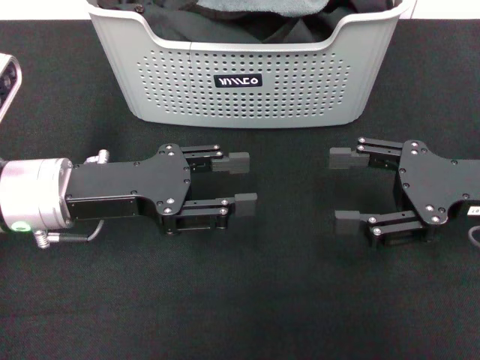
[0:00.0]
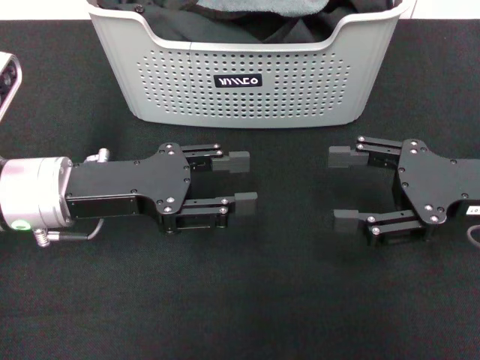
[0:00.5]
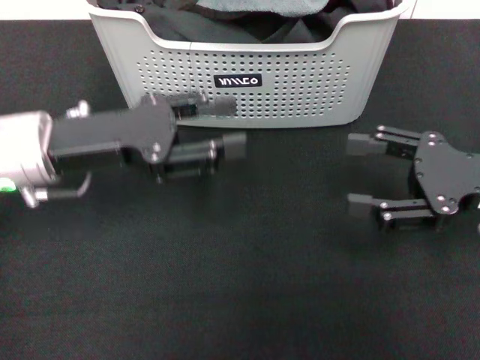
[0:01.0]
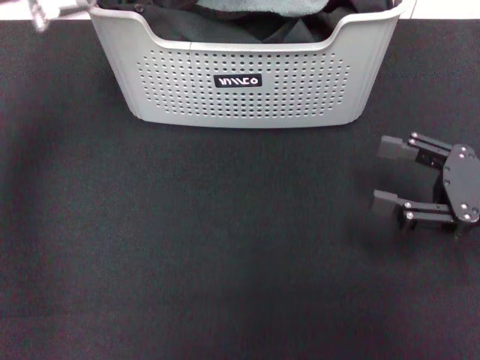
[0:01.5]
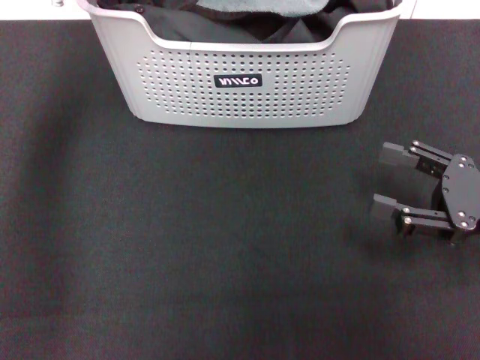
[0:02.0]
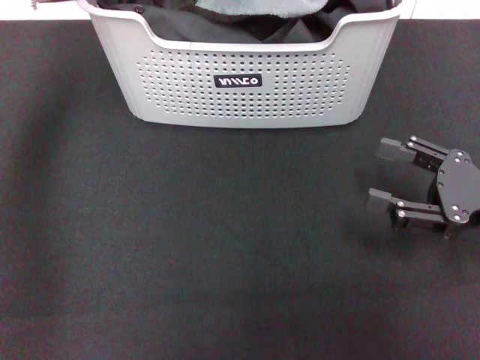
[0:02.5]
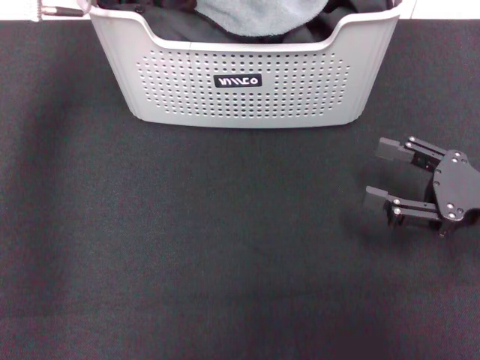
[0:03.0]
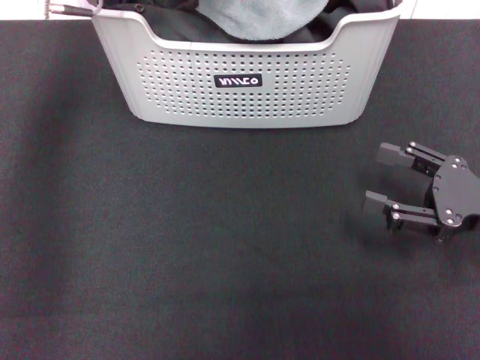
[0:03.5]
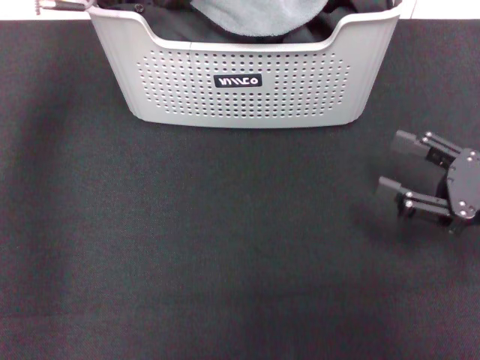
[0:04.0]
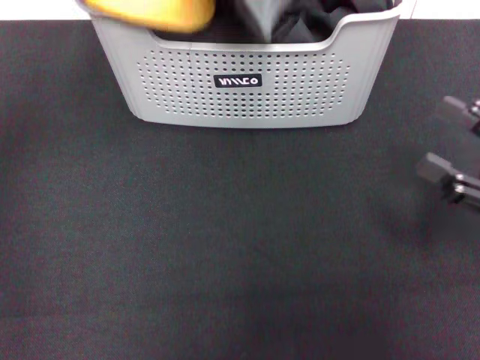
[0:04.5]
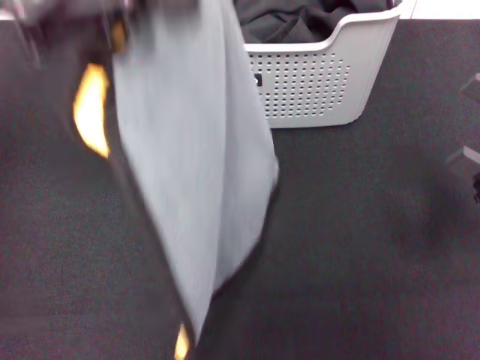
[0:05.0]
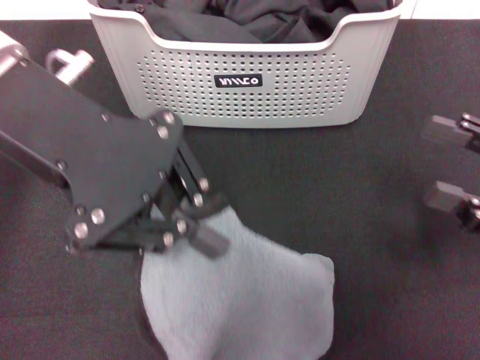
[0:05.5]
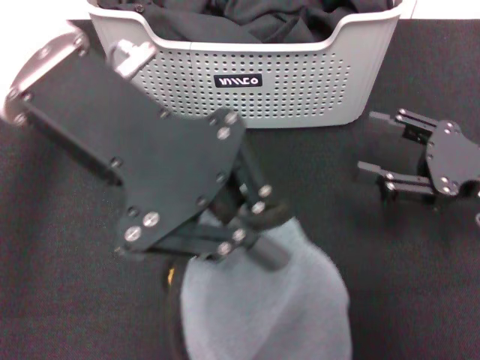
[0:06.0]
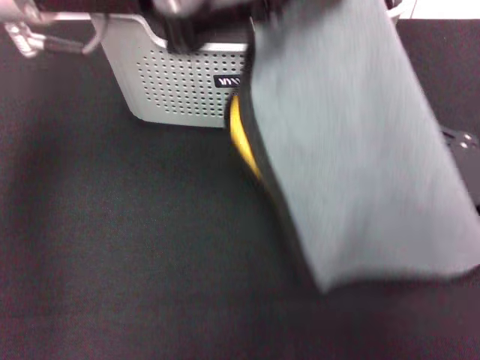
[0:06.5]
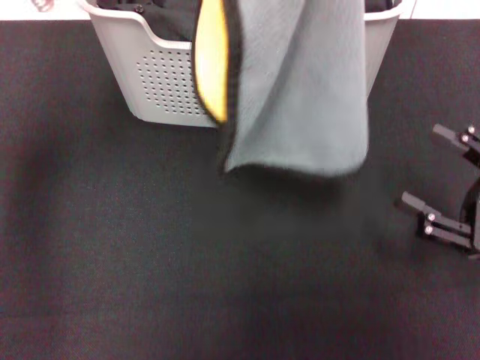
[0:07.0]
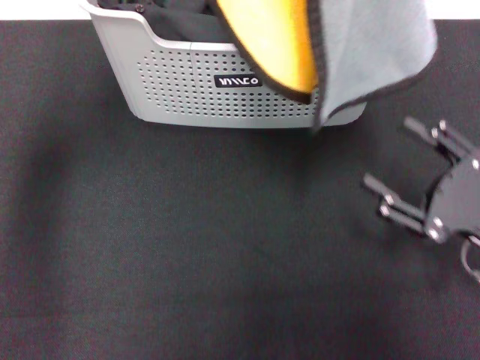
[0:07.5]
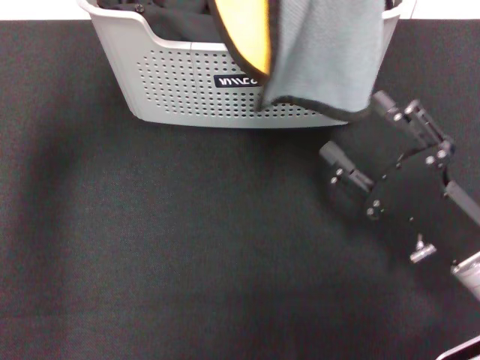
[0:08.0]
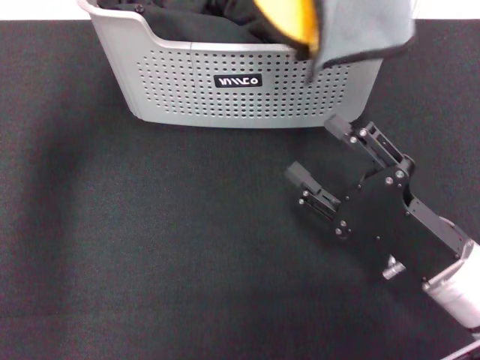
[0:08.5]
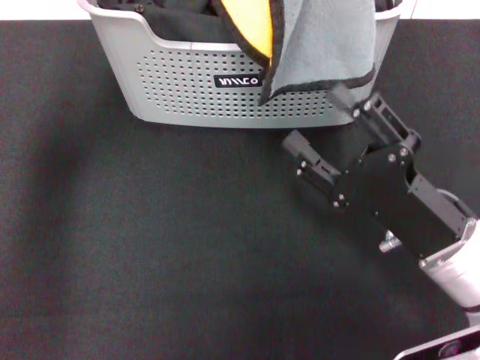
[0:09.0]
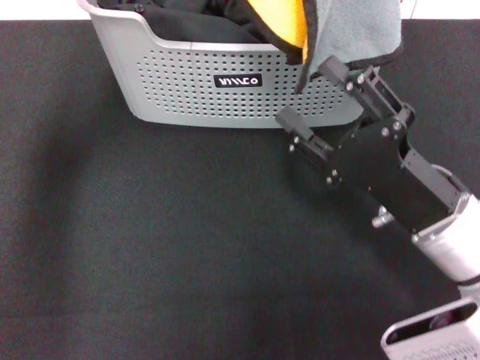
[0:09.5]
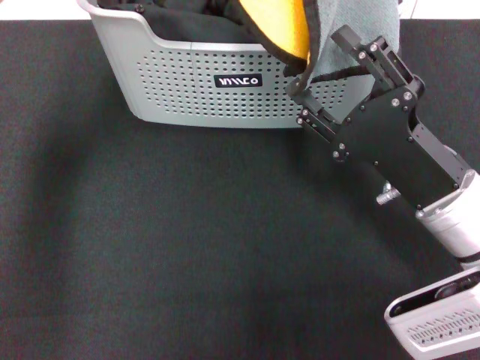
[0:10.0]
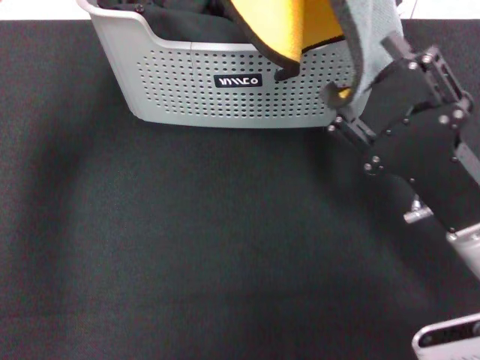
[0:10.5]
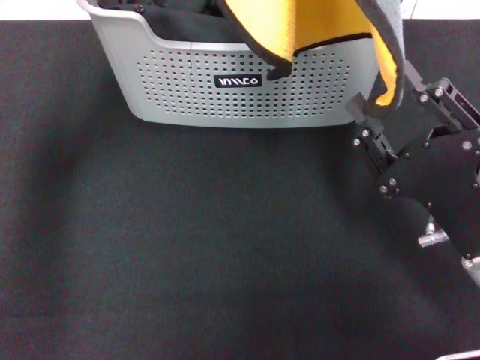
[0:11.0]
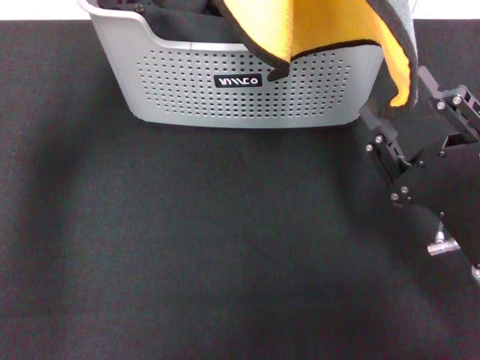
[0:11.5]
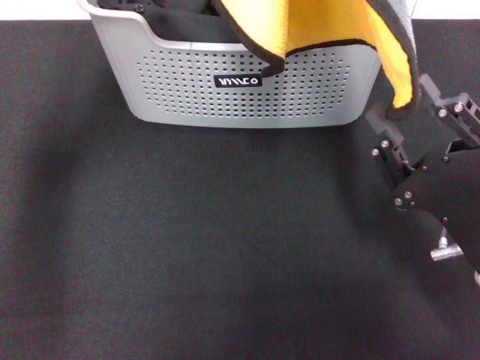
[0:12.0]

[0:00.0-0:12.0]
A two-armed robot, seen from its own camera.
Task of the whole recording: pick up the towel from the storage box and lay it flat on the black tablecloth.
Step, 0:00.0 to 0:03.5: Pick up a towel with the left gripper.
0:00.0 to 0:02.0: The left gripper is displaced forward and upward by about 20 cm. The right gripper ends up some 5 cm from where it was.
0:02.0 to 0:04.0: The left gripper closes up.
0:04.0 to 0:06.0: The left gripper shifts about 15 cm backward.
0:06.0 to 0:08.0: The left gripper moves forward, some 5 cm; the right gripper shifts some 10 cm backward and to the left.
0:08.0 to 0:10.0: The right gripper shifts by some 5 cm.
0:10.0 to 0:12.0: The right gripper goes some 5 cm backward, and closes.

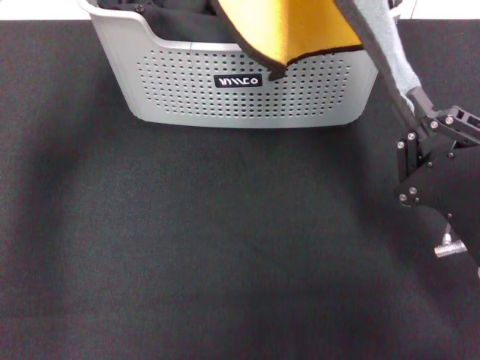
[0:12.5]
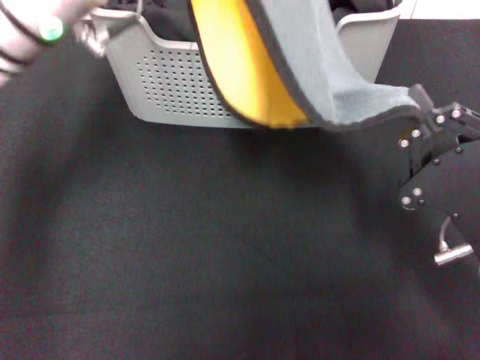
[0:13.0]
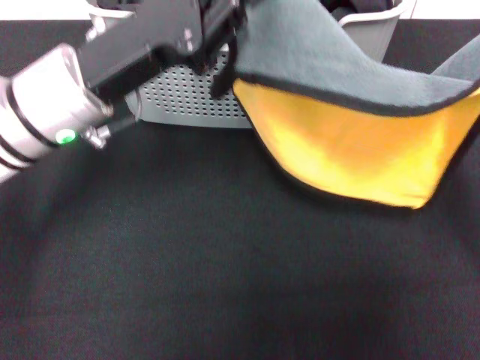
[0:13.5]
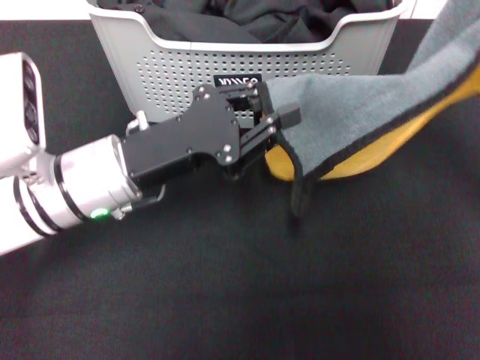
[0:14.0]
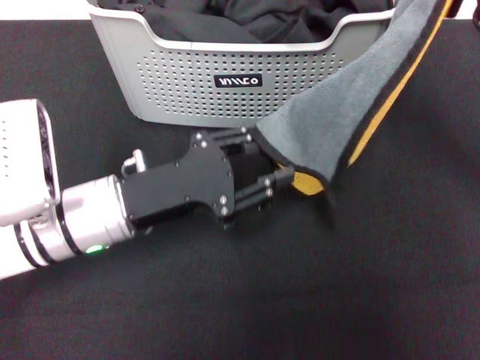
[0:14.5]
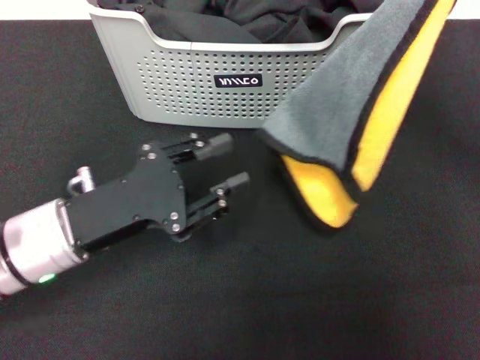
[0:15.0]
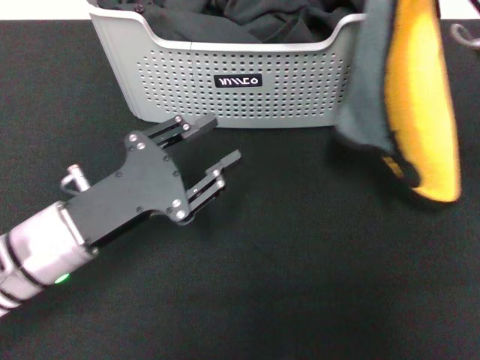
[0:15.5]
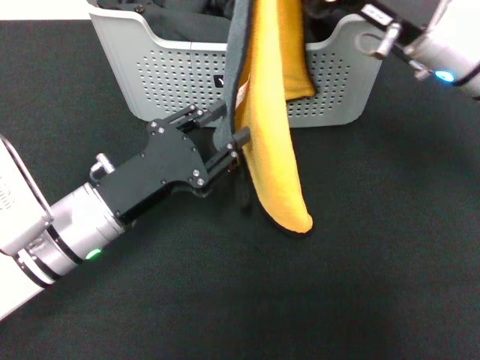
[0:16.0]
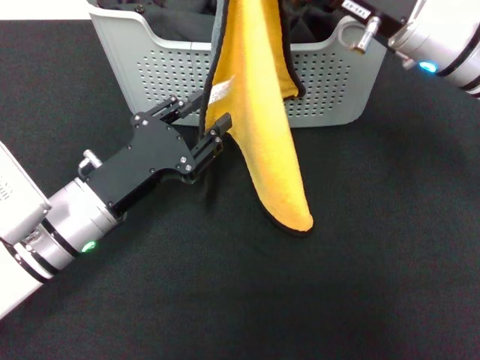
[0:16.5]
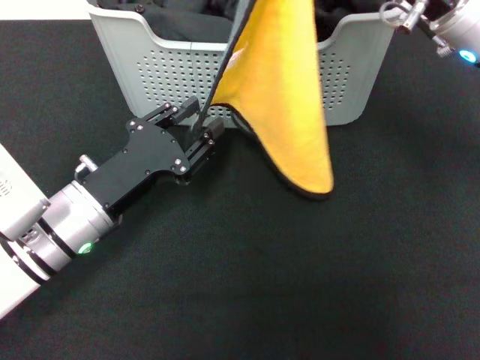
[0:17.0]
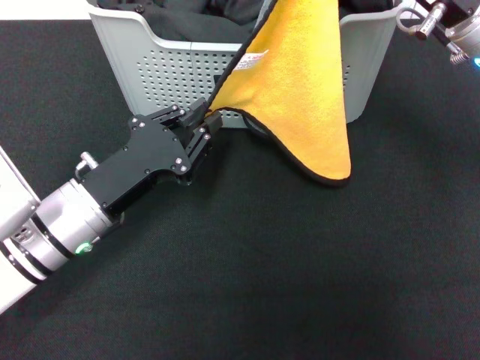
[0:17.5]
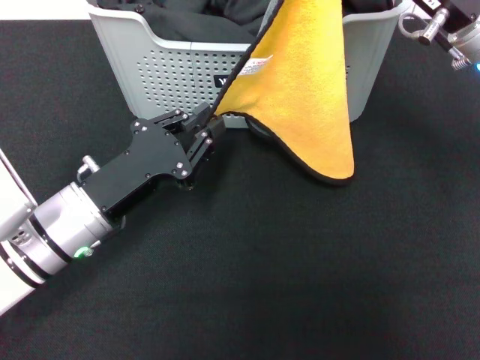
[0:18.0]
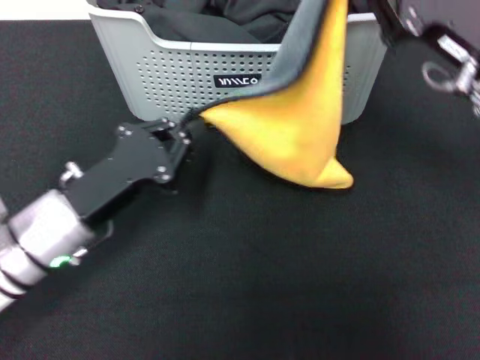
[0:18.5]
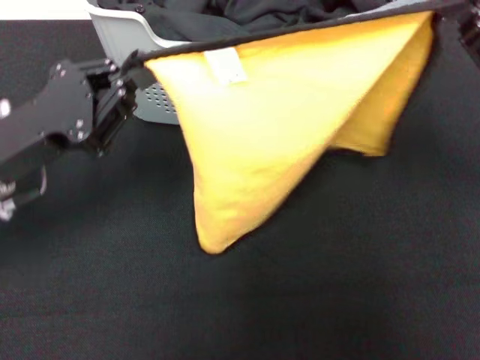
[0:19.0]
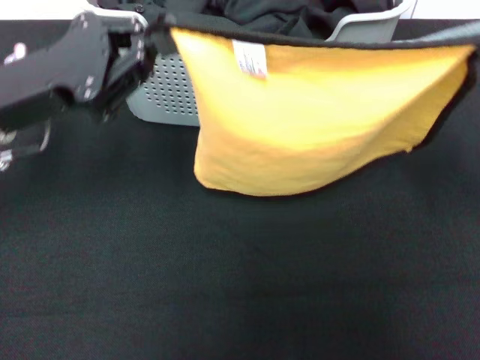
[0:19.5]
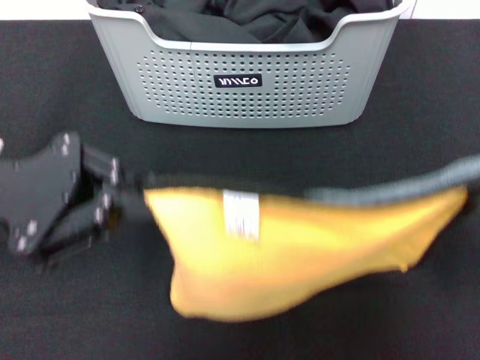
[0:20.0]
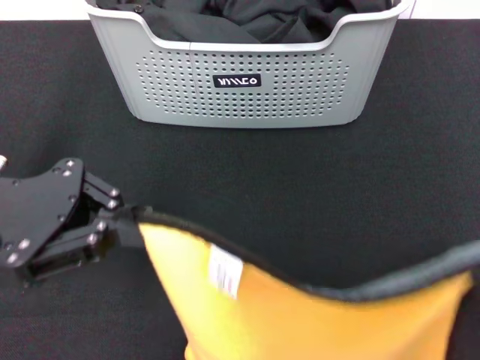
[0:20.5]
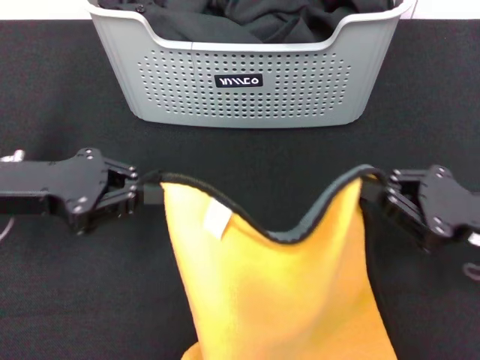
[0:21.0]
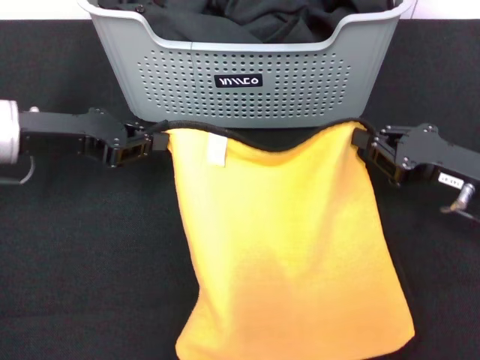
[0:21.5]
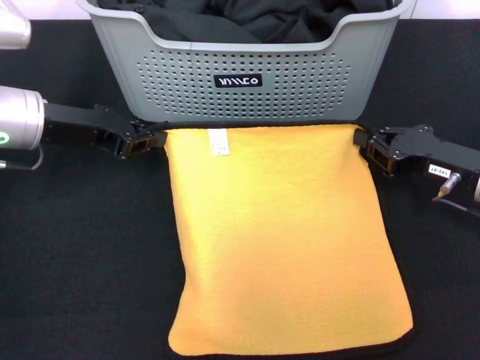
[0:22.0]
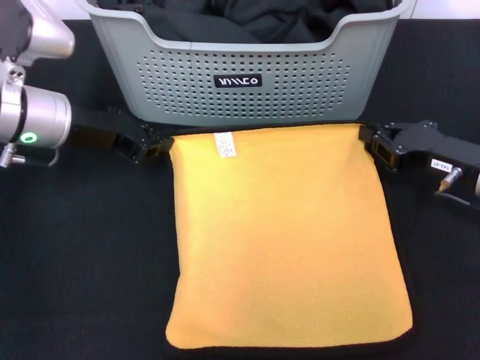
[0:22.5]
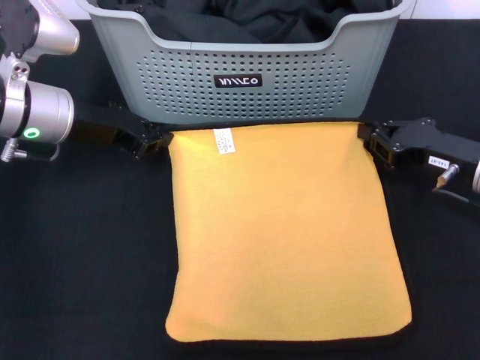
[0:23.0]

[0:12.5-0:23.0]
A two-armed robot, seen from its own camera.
Task of the whole recording: pick up the towel from the storage box and lay it flat on the black tablecloth.
0:12.5 to 0:14.5: The right gripper shifts roughly 15 cm forward and upward. Meanwhile the left gripper heads downward and backward, covering about 20 cm, and opens its fingers.
0:14.5 to 0:16.5: The right gripper heads to the left and forward, covering roughly 10 cm.
0:16.5 to 0:19.0: The left gripper heads upward and to the left, covering some 10 cm, and closes. The right gripper moves to the right and backward, about 15 cm.
0:19.0 to 0:21.0: The right gripper travels downward and backward by some 10 cm.
0:21.0 to 0:23.0: Both grippers move forward, roughly 10 cm.

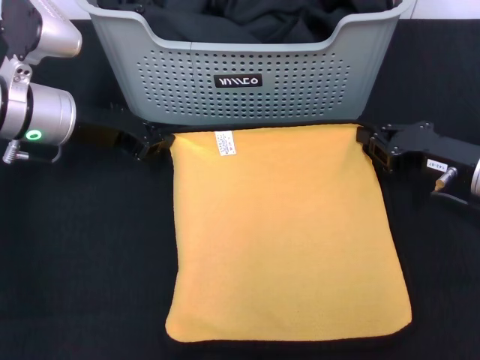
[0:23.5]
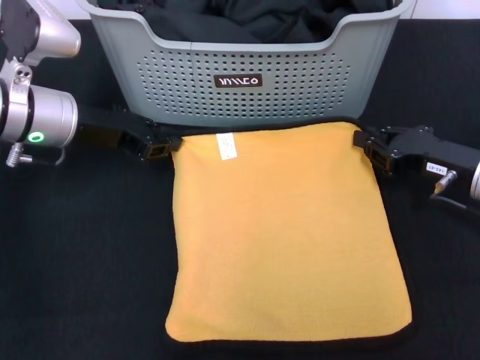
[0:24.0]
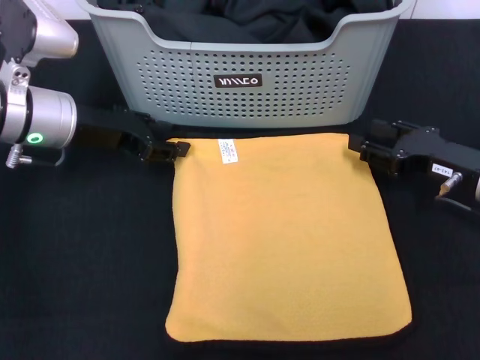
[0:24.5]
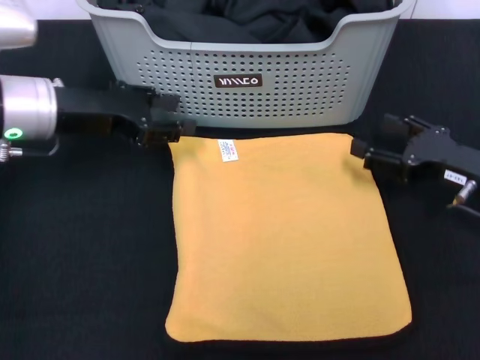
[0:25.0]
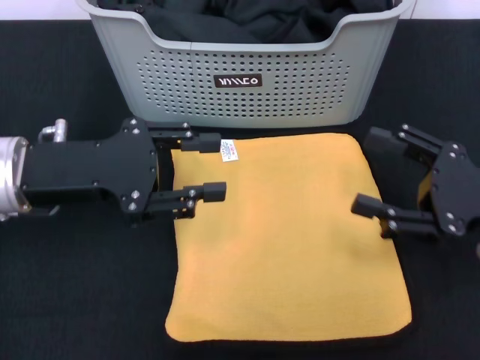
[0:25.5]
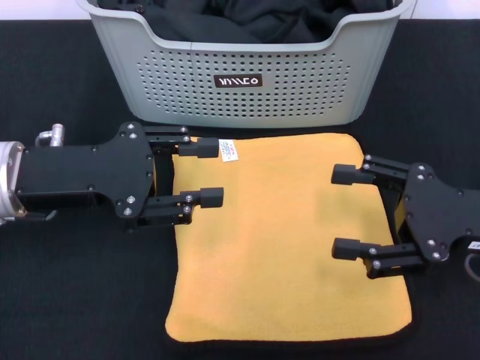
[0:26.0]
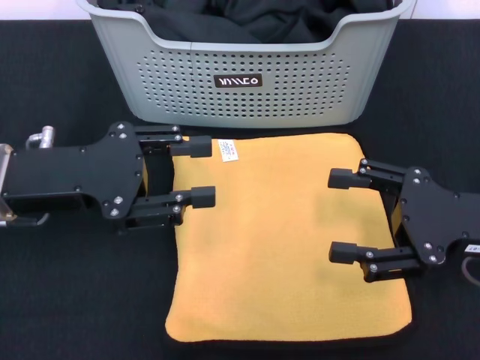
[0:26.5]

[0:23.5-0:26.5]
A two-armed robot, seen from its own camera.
Task of the whole recording: pick up the towel from the storage box and lay it flat on the black tablecloth.
0:23.5 to 0:25.0: The left gripper opens its fingers. The right gripper opens.
0:25.0 to 0:26.5: The right gripper goes roughly 5 cm backward. Meanwhile the left gripper is displaced backward by about 10 cm.
